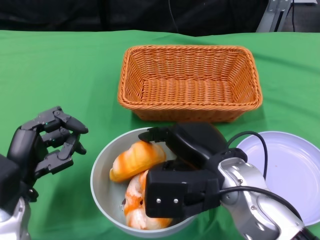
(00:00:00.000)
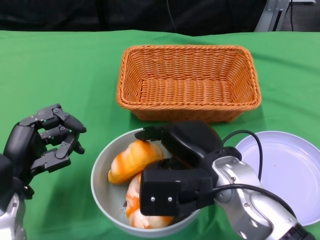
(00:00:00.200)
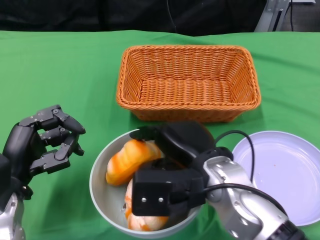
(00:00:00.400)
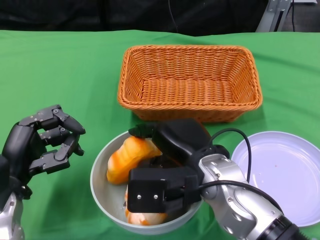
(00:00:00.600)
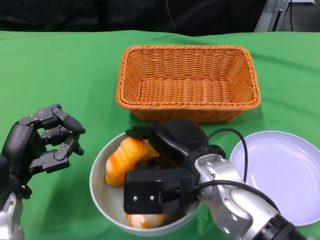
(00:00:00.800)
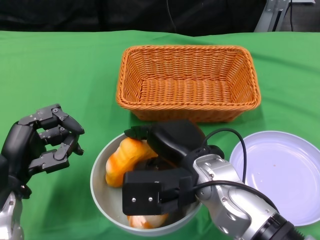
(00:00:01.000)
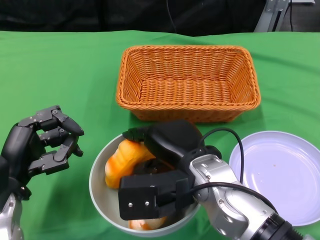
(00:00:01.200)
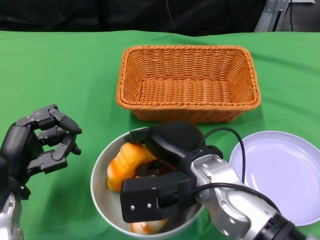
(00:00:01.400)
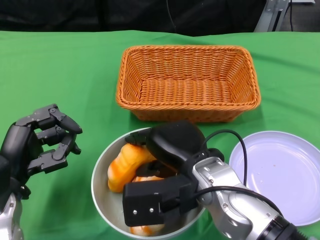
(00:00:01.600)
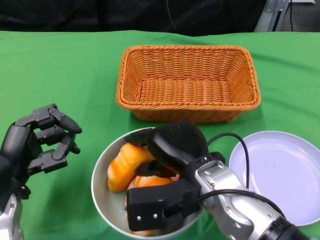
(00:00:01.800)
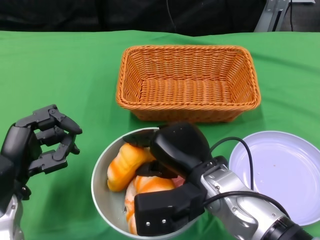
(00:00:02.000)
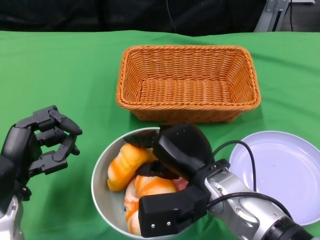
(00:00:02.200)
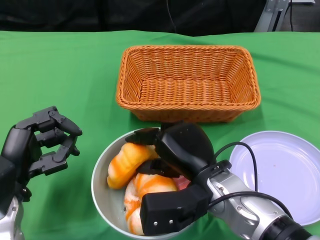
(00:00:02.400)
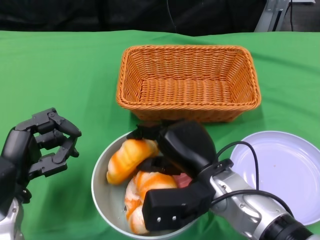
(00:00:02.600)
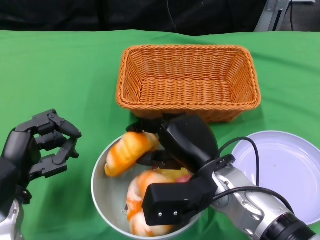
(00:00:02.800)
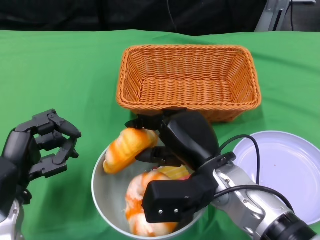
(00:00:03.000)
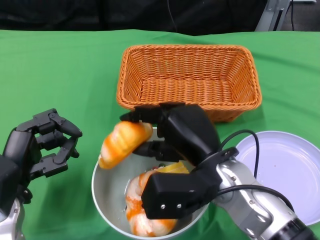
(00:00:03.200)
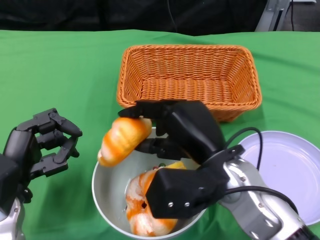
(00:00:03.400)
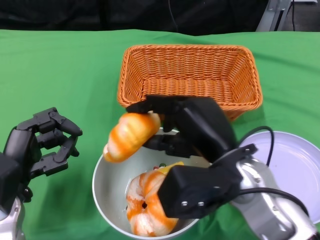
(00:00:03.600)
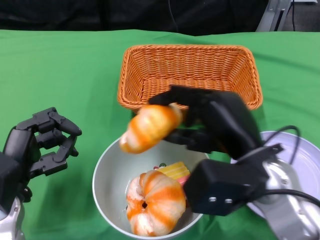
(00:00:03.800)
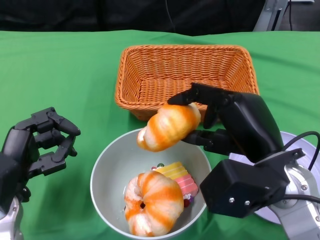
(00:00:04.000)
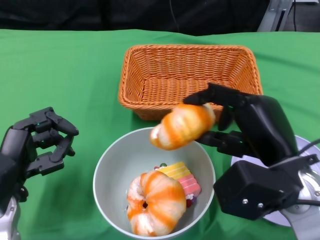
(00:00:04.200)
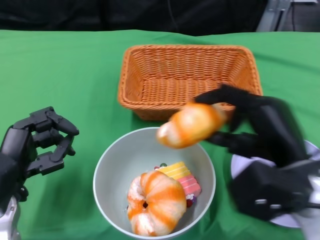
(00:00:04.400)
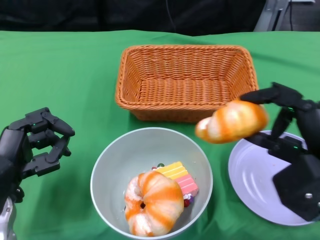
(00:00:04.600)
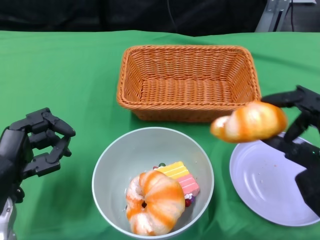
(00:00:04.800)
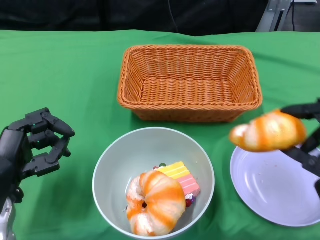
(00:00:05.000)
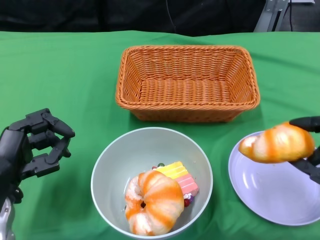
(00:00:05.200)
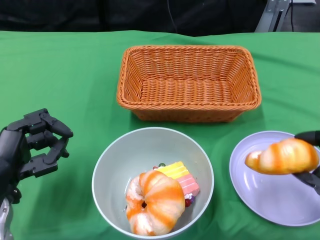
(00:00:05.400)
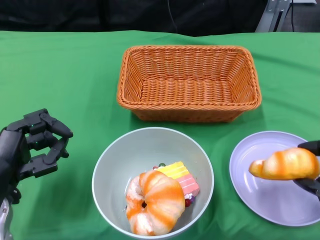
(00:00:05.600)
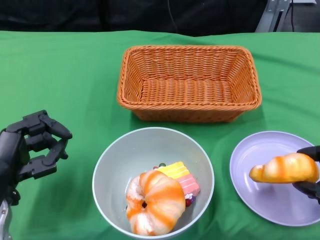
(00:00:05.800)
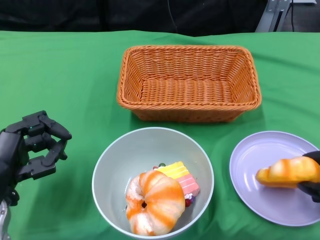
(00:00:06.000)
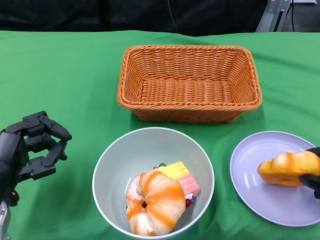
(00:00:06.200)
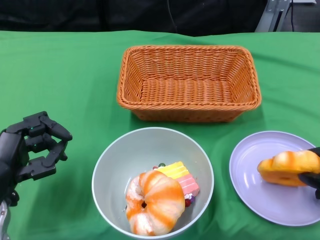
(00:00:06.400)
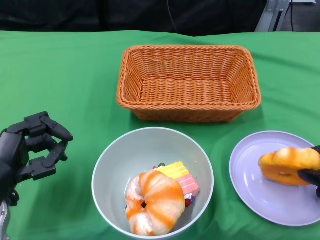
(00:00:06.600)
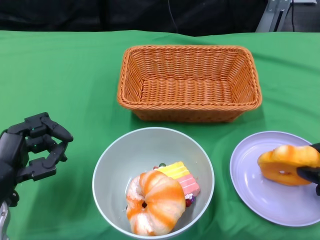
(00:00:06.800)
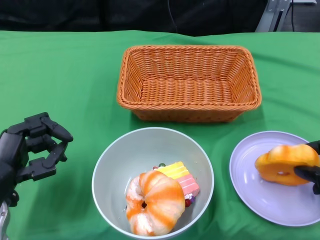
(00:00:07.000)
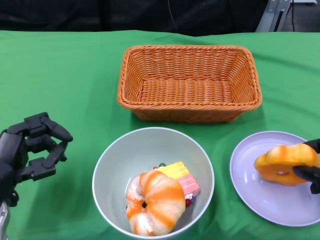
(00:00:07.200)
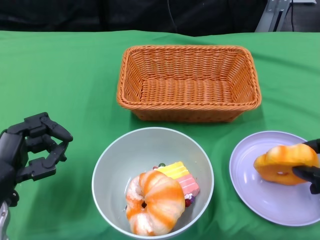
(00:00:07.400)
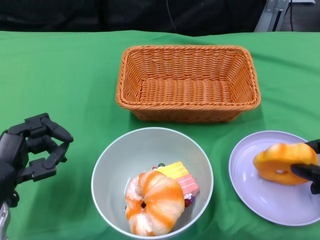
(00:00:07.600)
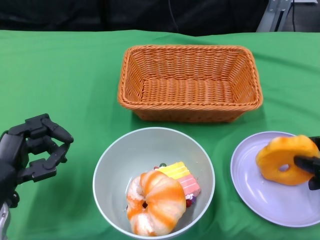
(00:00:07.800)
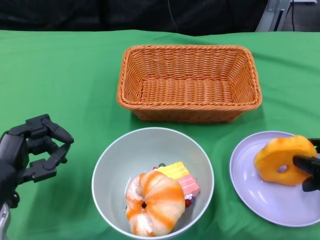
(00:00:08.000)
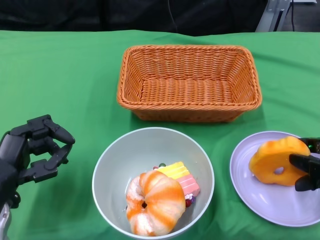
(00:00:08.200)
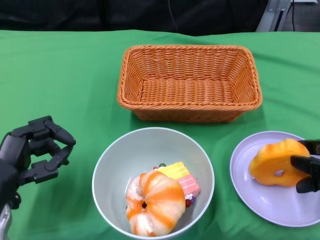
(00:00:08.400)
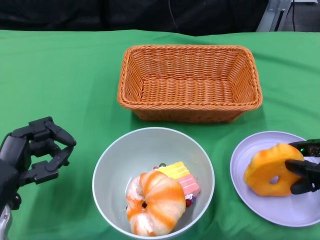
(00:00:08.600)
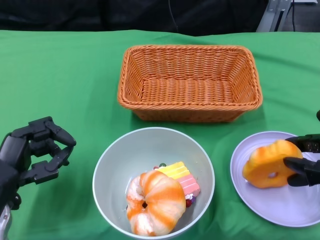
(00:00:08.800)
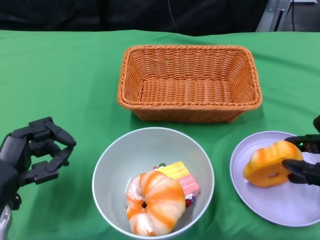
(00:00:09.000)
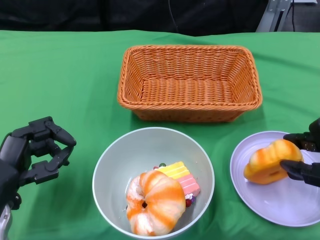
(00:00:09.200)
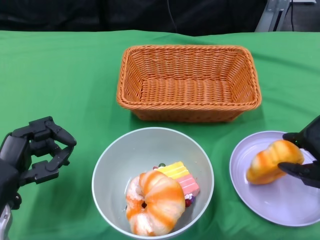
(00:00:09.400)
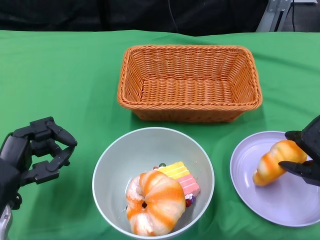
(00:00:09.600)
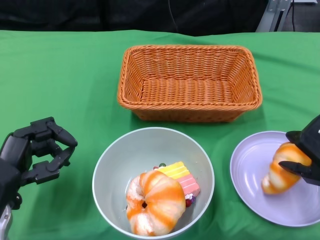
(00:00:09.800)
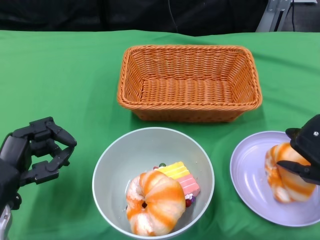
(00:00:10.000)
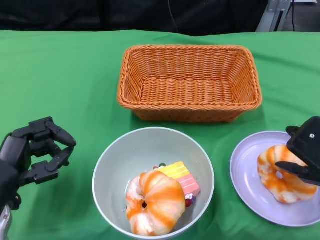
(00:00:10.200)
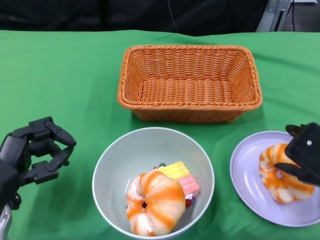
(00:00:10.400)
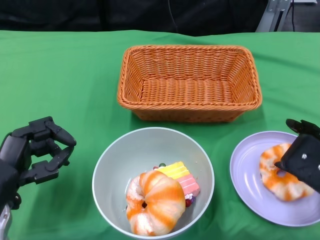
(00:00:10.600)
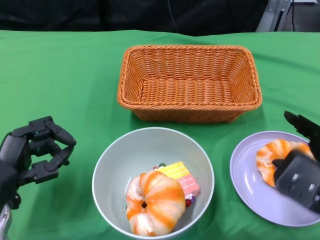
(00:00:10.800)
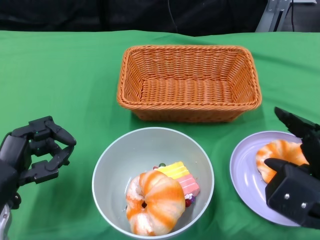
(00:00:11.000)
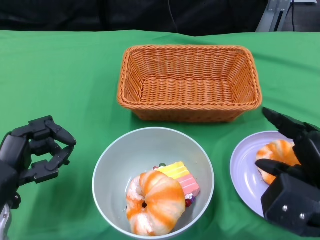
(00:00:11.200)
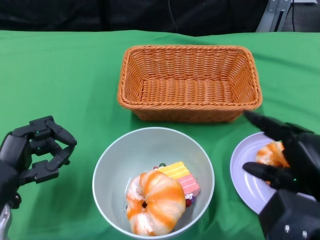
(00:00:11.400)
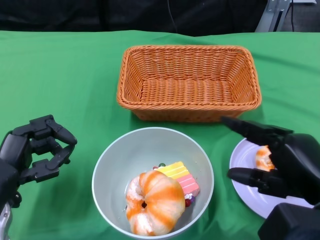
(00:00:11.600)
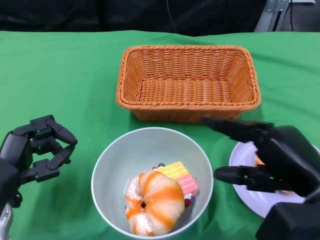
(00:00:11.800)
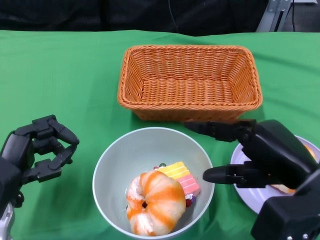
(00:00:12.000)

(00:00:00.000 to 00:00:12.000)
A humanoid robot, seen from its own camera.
00:00:03.000 - 00:00:04.400: The right hand travels to the right by roughly 10 cm.
00:00:04.400 - 00:00:06.000: The right hand shifts approximately 10 cm to the right and downward.
00:00:06.000 - 00:00:07.600: The hands make only small movements.
00:00:07.600 - 00:00:09.000: The hands stay close to where they were, moving slightly.
00:00:10.400 - 00:00:12.000: The right hand goes approximately 5 cm to the left.

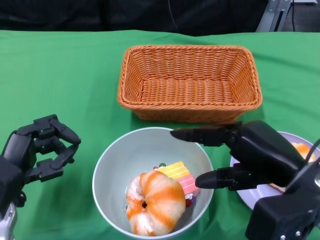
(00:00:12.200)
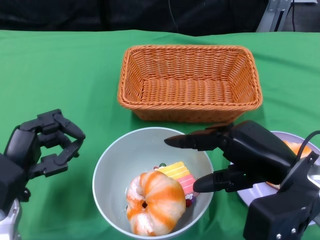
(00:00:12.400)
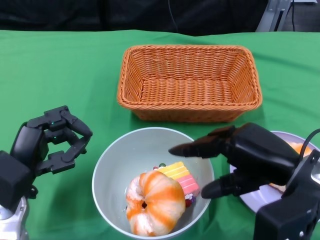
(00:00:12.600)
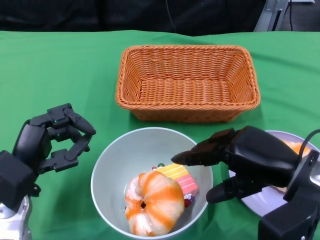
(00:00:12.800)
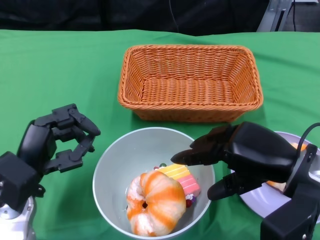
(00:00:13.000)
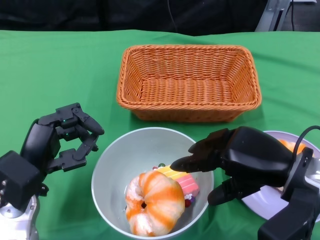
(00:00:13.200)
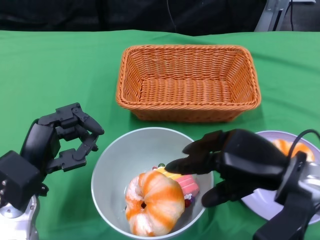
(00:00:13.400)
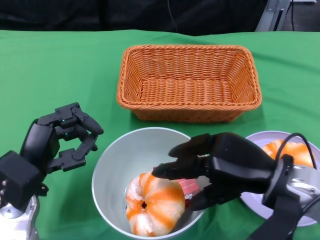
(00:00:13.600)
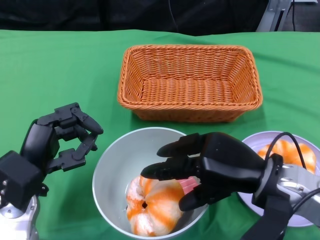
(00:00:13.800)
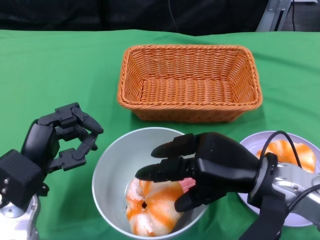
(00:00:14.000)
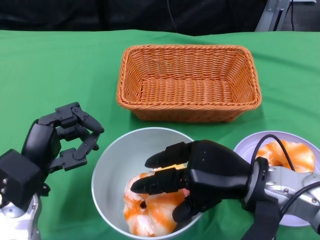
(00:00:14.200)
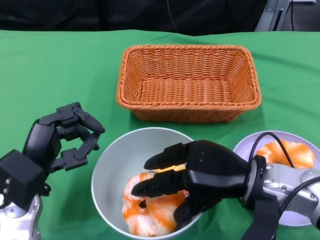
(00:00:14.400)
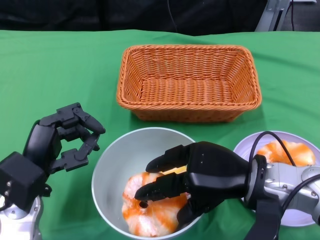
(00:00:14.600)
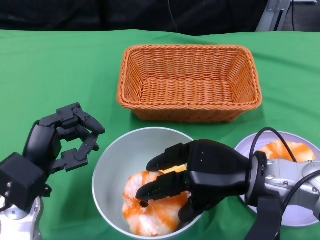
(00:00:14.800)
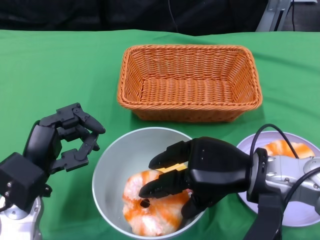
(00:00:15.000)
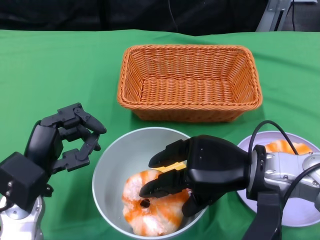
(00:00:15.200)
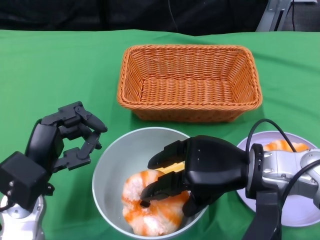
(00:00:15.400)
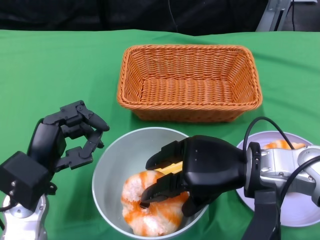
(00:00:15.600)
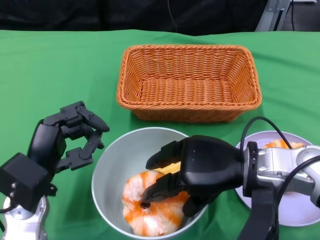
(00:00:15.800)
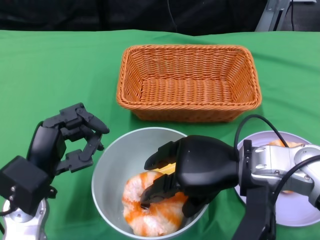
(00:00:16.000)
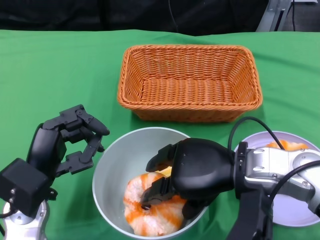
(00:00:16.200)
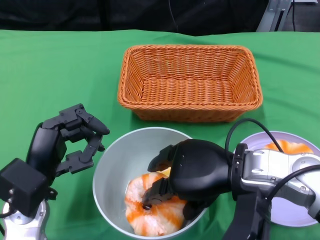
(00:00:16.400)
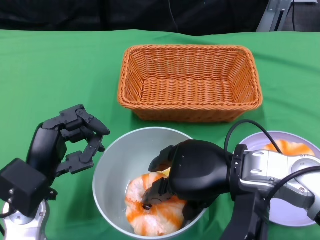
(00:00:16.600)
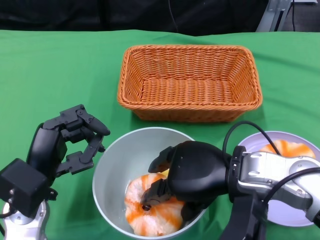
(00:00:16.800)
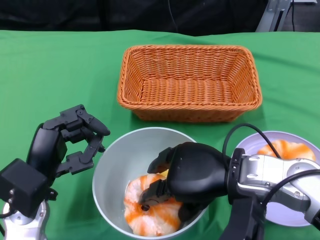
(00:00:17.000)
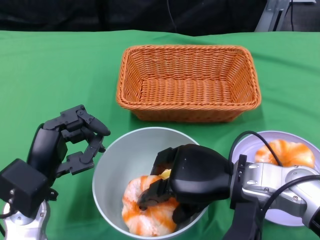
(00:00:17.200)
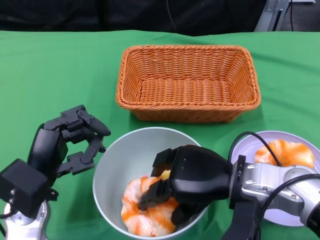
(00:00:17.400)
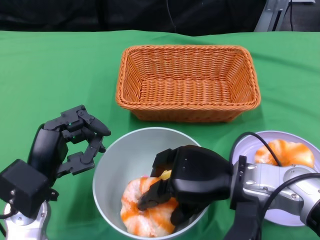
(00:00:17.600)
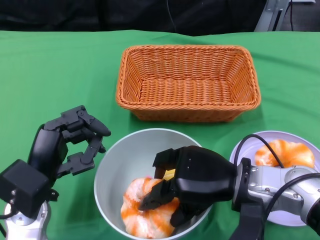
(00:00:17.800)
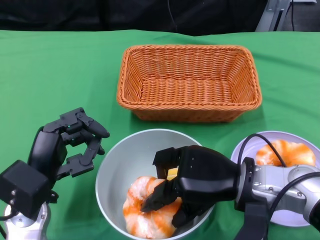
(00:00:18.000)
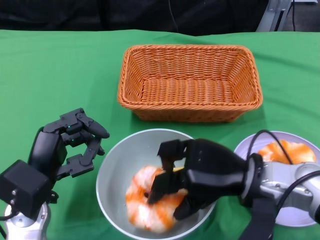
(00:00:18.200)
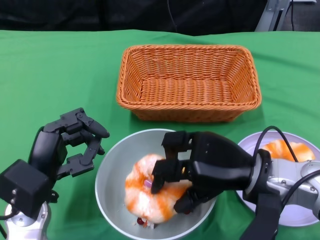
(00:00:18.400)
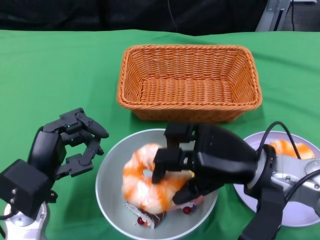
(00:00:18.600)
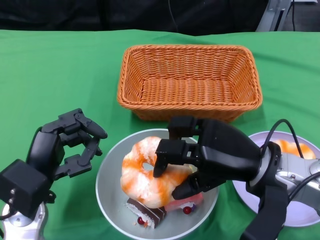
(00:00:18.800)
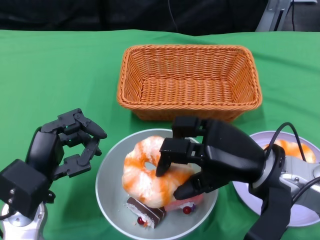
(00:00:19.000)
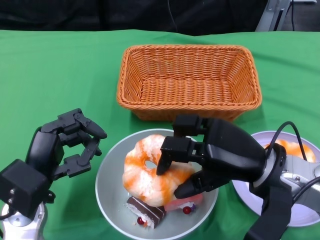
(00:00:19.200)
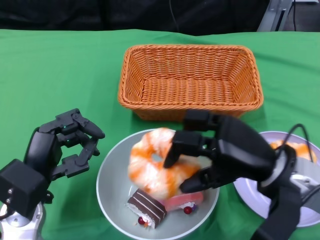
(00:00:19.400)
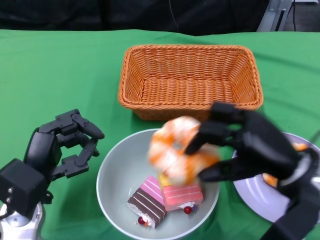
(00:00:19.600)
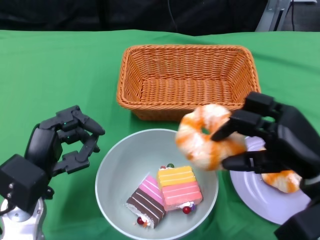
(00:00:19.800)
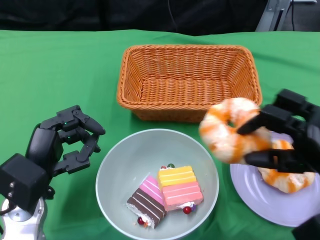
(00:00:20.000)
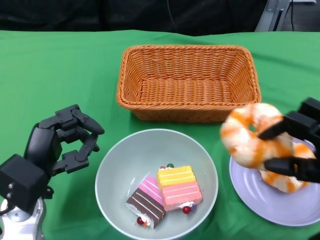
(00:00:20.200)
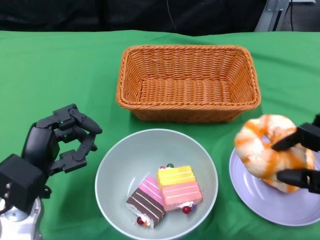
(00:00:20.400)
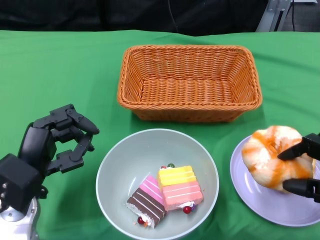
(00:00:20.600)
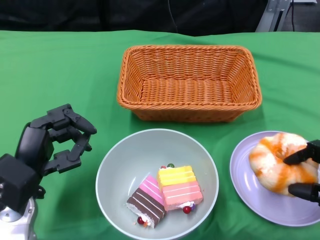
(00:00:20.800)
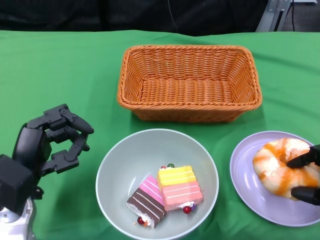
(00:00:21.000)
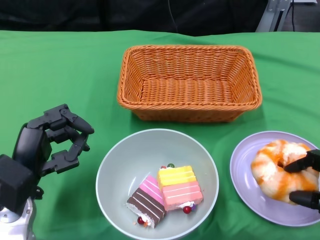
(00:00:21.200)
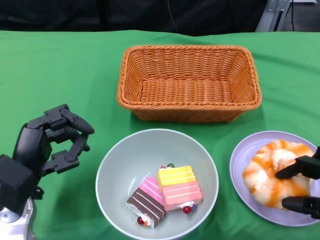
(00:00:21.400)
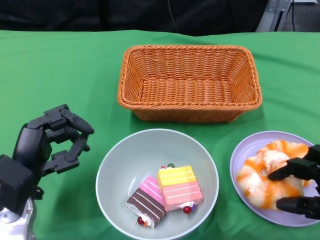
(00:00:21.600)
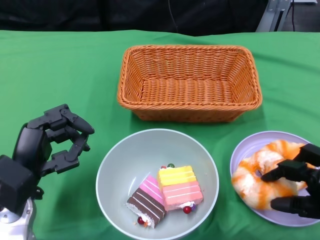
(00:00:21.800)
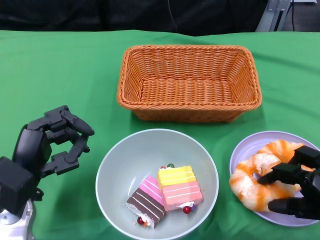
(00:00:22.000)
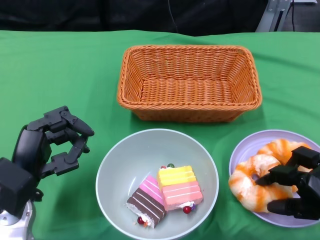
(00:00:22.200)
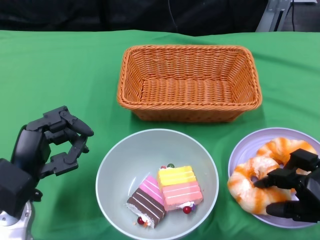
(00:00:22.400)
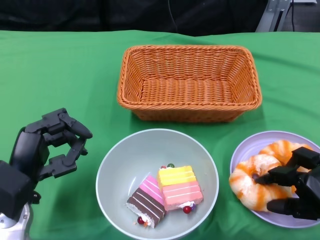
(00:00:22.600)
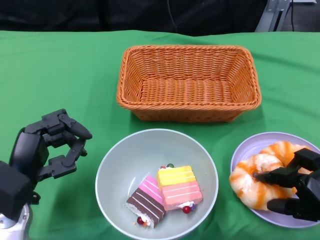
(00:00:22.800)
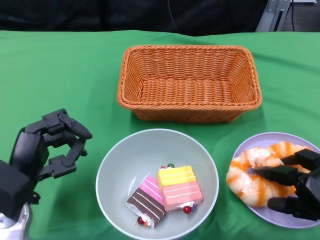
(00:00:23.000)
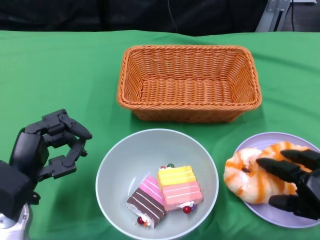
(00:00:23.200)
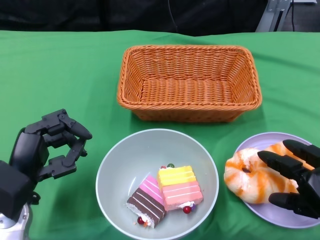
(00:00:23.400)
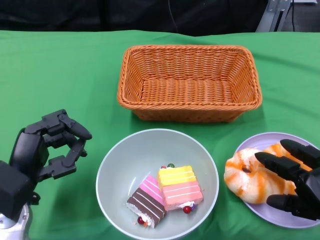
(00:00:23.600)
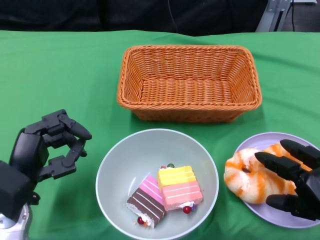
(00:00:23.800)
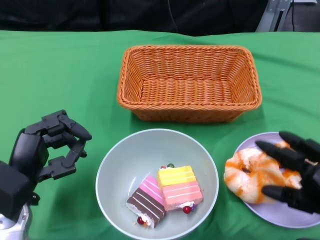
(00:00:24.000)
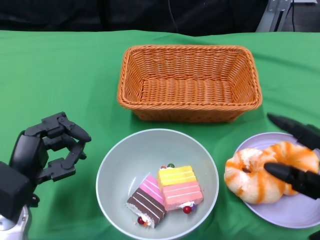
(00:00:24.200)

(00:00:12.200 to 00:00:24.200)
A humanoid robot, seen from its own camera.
00:00:12.200 - 00:00:13.800: The right hand ends up approximately 5 cm from where it was.
00:00:13.800 - 00:00:15.200: The hands stay close to where they were, moving slightly.
00:00:18.200 - 00:00:19.800: The right hand goes some 10 cm to the right.
00:00:19.800 - 00:00:21.200: The right hand heads to the right, backward and downward, covering roughly 10 cm.
00:00:21.200 - 00:00:22.600: The hands make only small movements.
